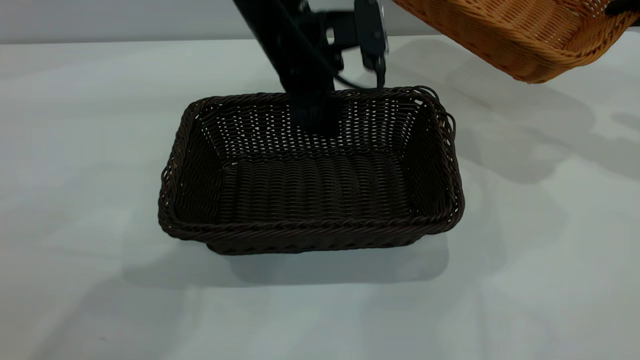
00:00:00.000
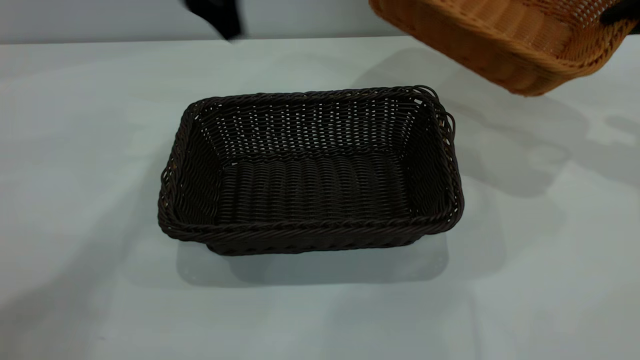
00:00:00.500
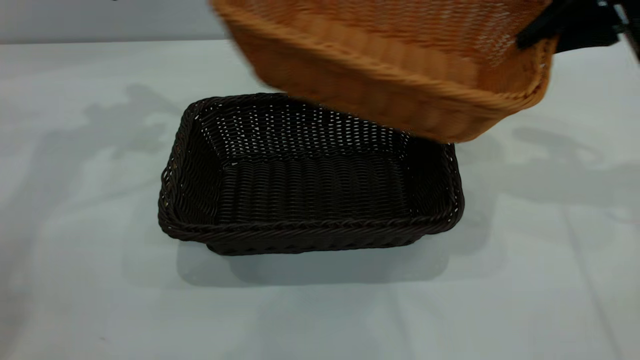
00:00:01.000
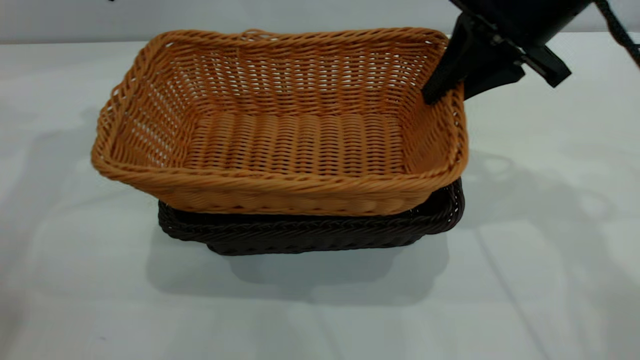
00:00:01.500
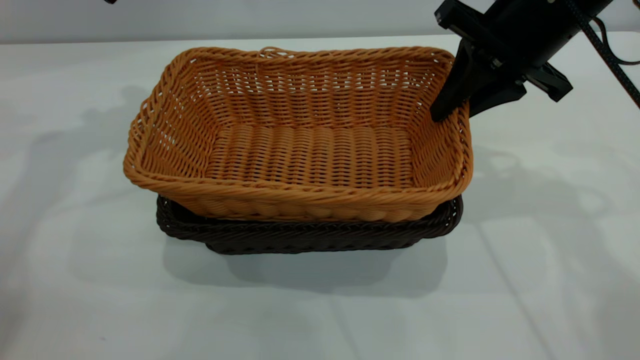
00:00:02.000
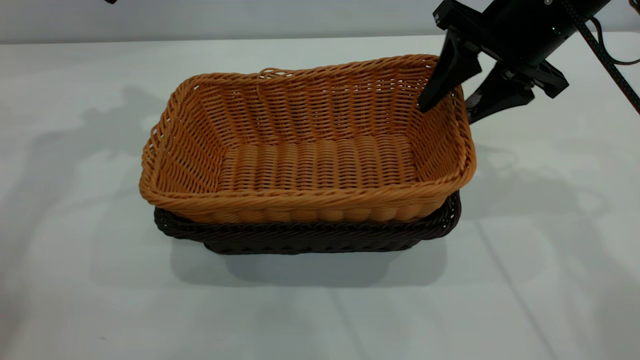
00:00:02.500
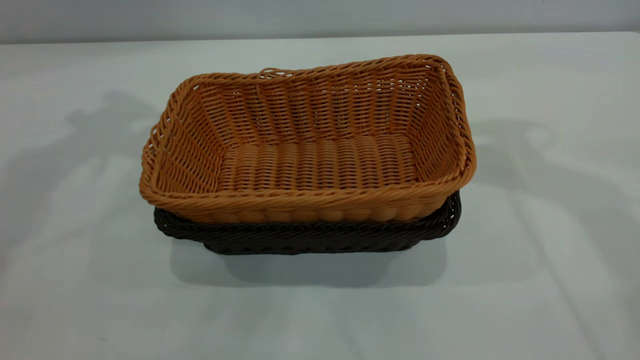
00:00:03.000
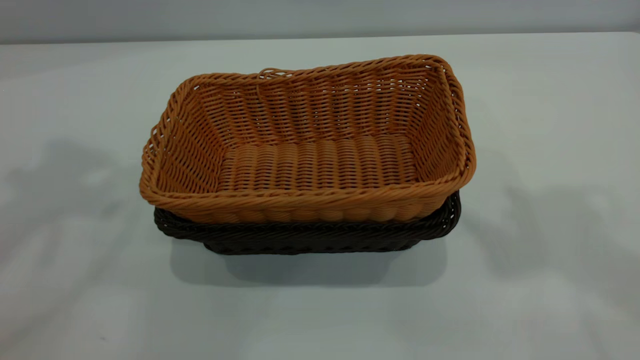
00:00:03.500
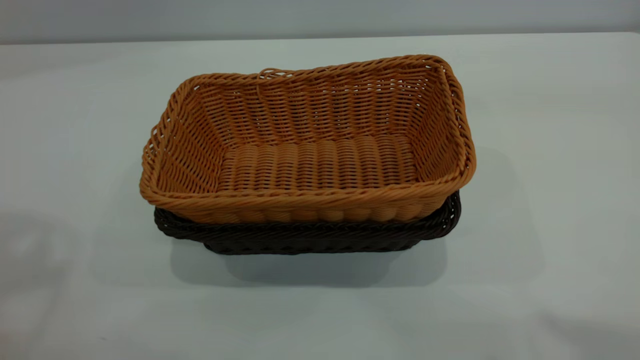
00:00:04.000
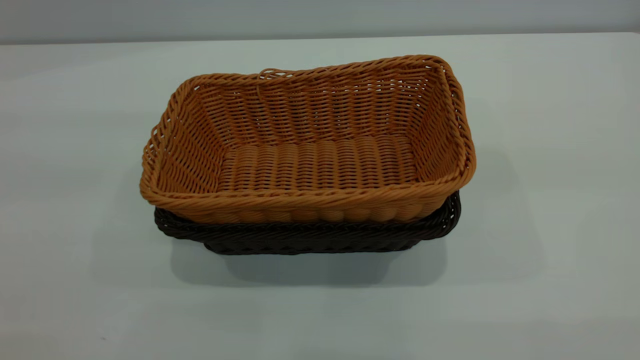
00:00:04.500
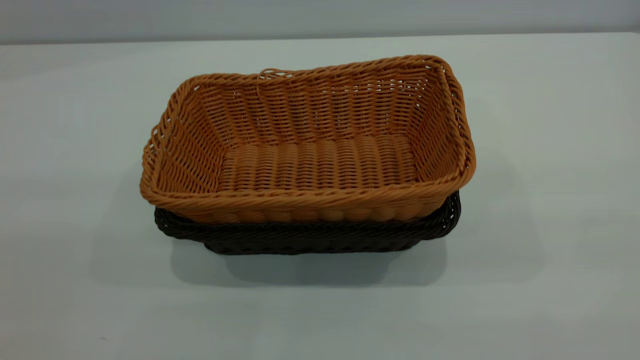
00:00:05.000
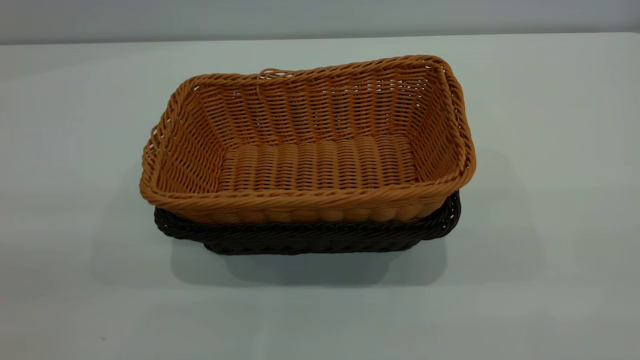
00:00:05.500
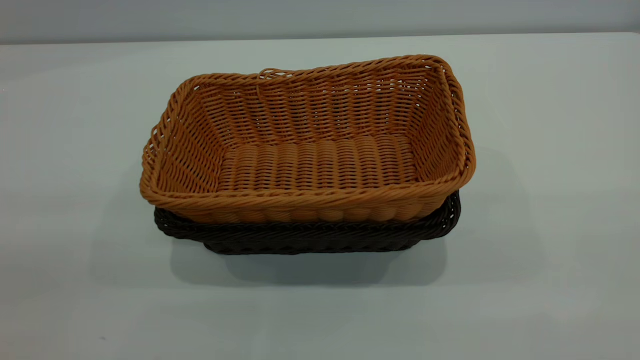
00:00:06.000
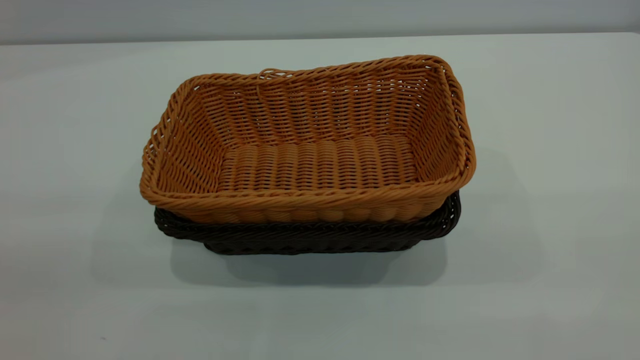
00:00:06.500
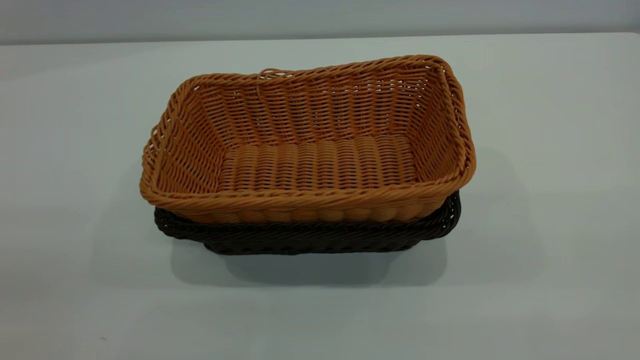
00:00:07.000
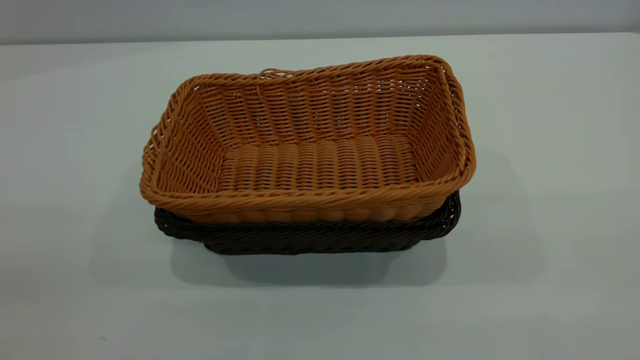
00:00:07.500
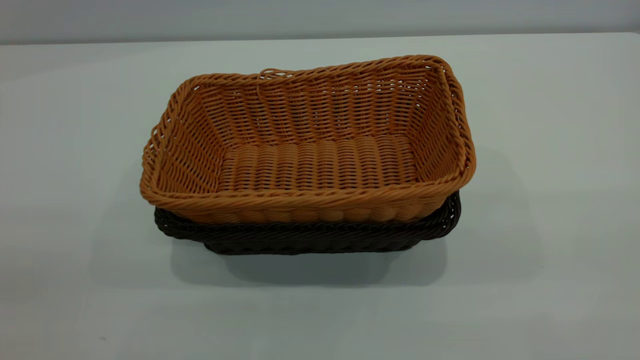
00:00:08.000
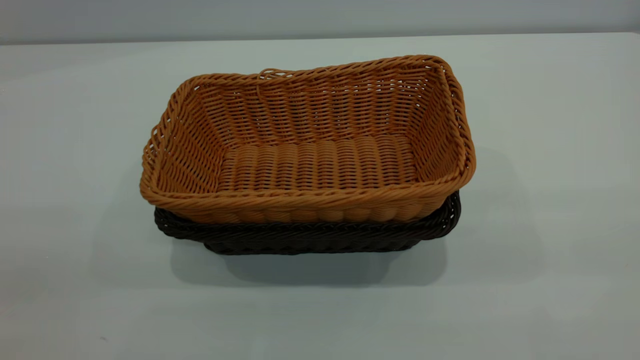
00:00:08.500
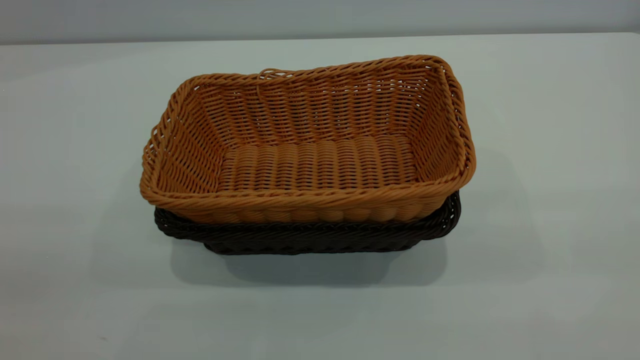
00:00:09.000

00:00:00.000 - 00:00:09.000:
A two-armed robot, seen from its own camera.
Task of the whole recording: the left gripper grasp the black basket and place it in the center of the table, the right gripper grasp the brown basket and place it inside the black one.
Step, 00:00:00.500 - 00:00:02.500: Place the light basket on the dark basket.
00:00:00.000 - 00:00:02.000: The right gripper is displaced to the left by roughly 20 cm. The left gripper moves to the left and upward, roughly 30 cm.
00:00:02.000 - 00:00:04.500: The right gripper travels backward and upward by about 40 cm, and opens, while the left gripper heads backward, covering some 40 cm.
